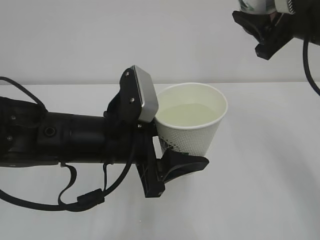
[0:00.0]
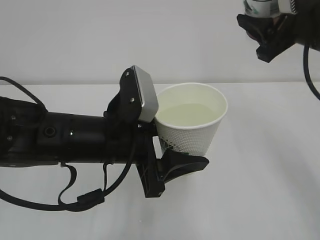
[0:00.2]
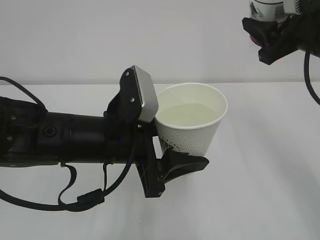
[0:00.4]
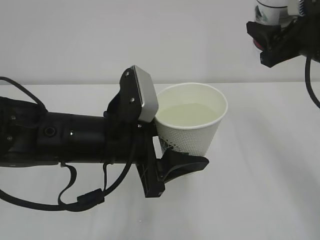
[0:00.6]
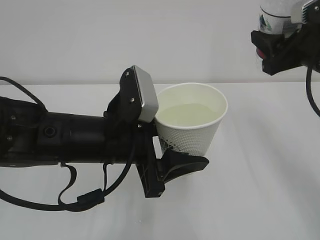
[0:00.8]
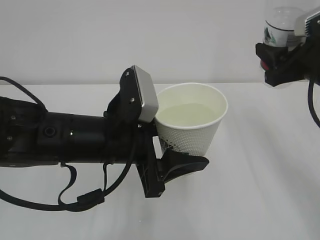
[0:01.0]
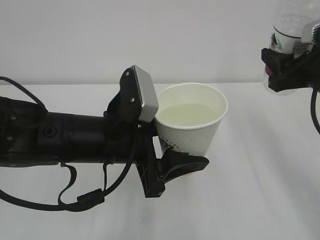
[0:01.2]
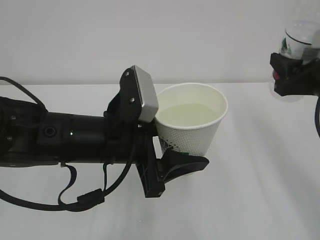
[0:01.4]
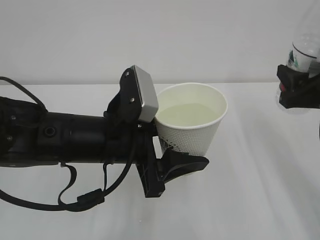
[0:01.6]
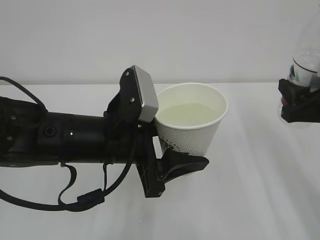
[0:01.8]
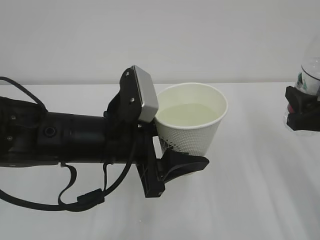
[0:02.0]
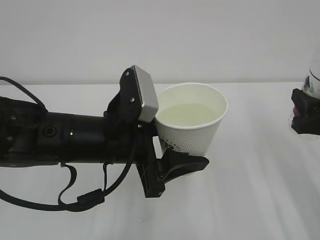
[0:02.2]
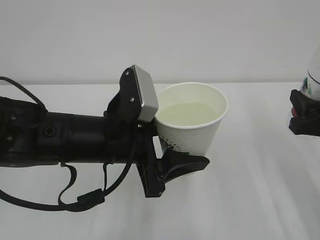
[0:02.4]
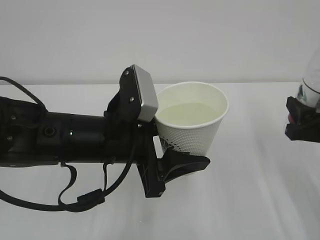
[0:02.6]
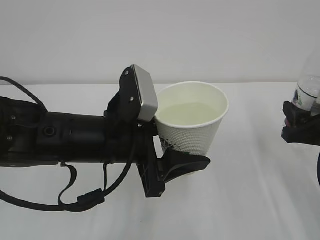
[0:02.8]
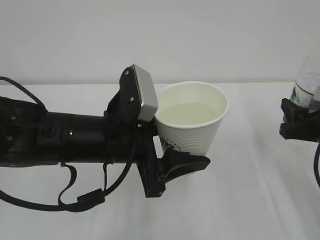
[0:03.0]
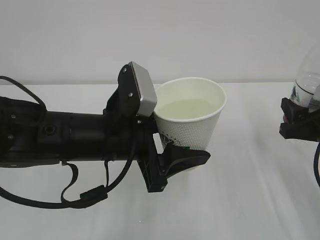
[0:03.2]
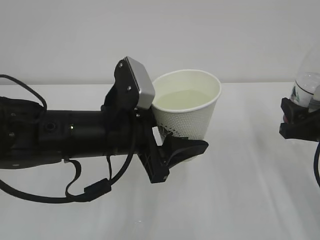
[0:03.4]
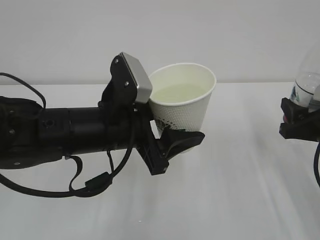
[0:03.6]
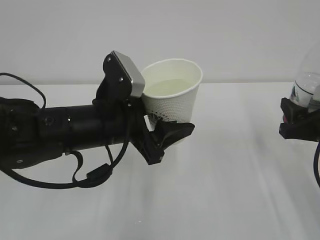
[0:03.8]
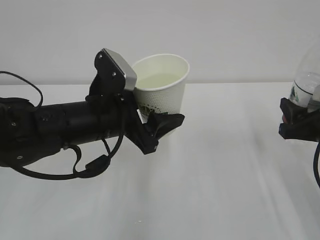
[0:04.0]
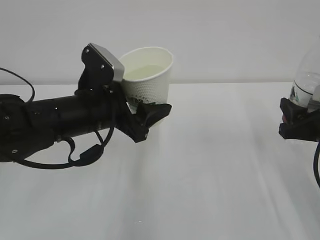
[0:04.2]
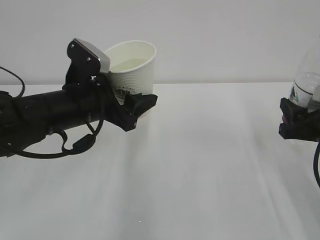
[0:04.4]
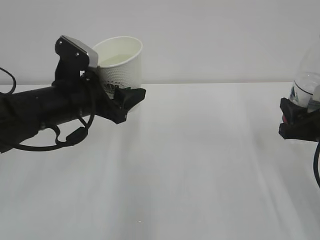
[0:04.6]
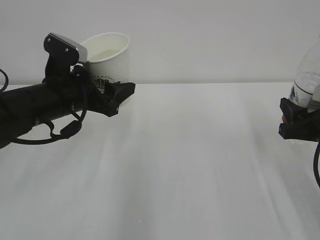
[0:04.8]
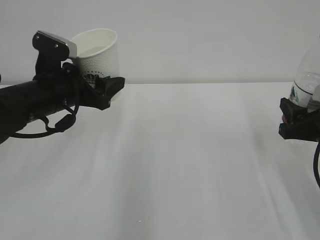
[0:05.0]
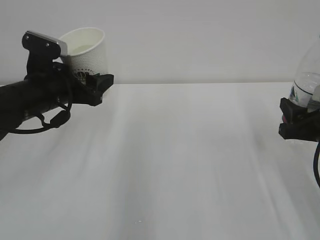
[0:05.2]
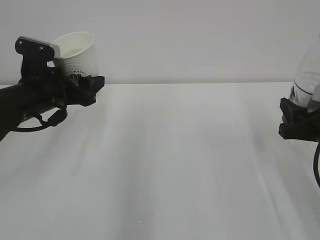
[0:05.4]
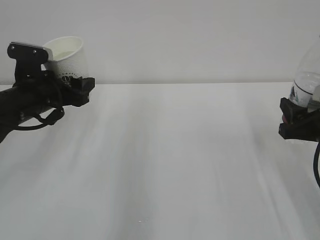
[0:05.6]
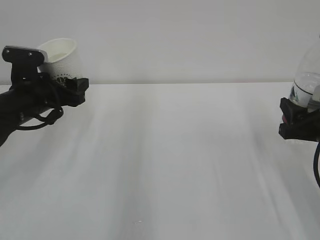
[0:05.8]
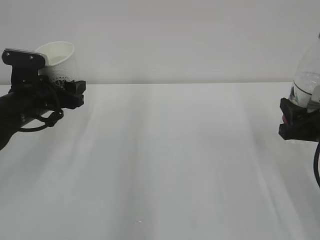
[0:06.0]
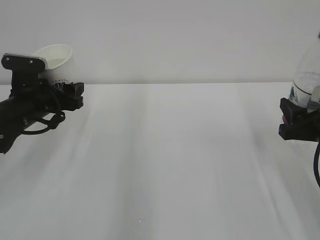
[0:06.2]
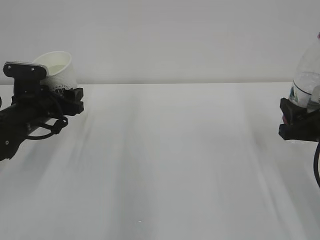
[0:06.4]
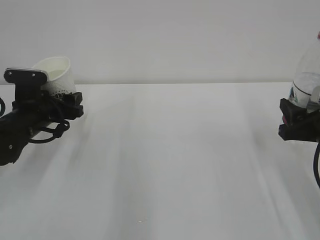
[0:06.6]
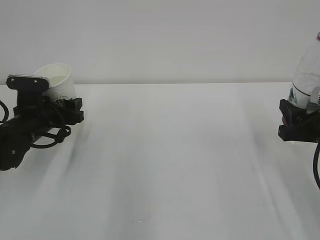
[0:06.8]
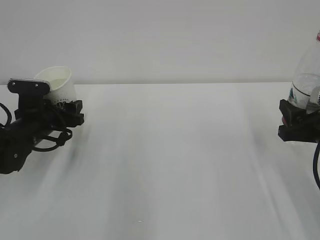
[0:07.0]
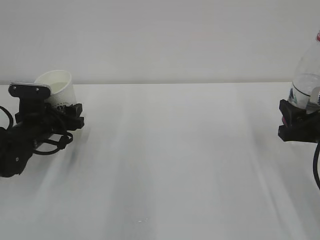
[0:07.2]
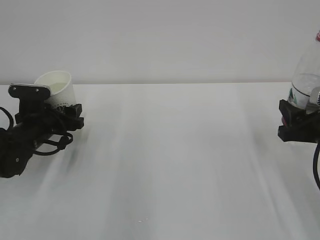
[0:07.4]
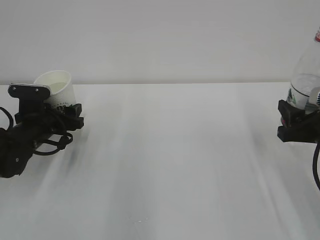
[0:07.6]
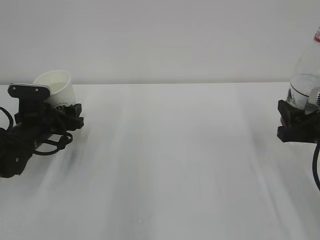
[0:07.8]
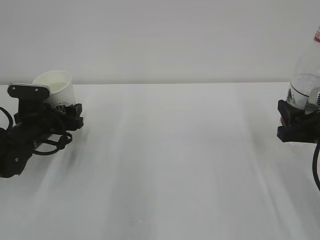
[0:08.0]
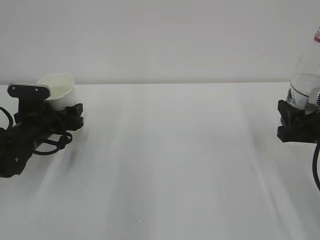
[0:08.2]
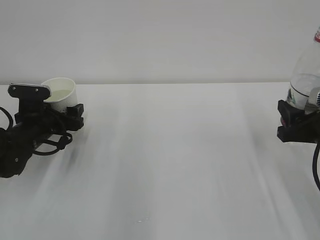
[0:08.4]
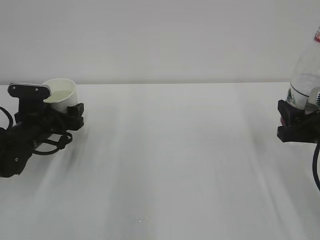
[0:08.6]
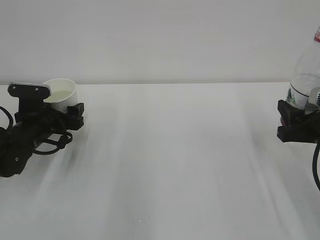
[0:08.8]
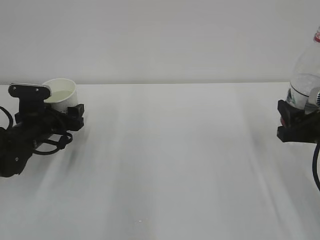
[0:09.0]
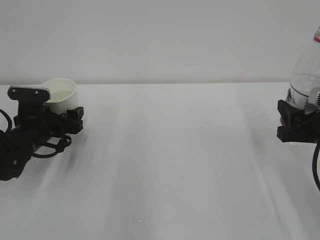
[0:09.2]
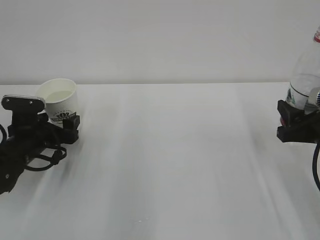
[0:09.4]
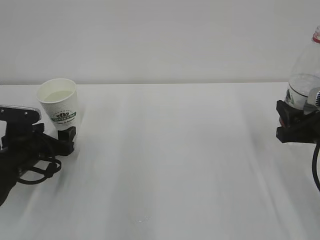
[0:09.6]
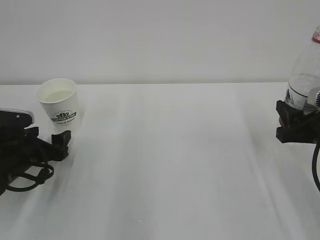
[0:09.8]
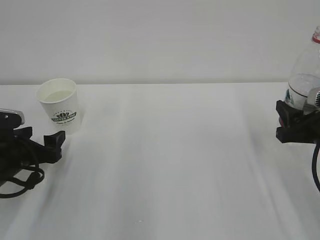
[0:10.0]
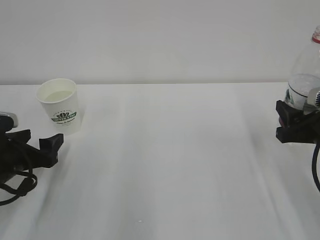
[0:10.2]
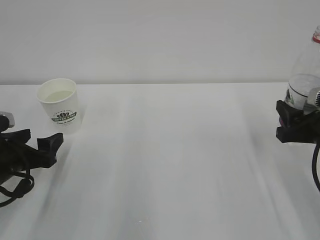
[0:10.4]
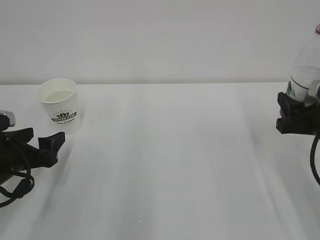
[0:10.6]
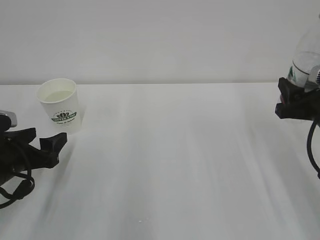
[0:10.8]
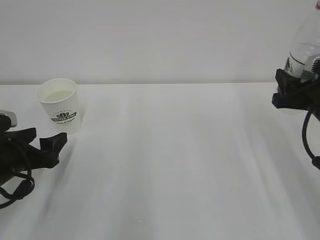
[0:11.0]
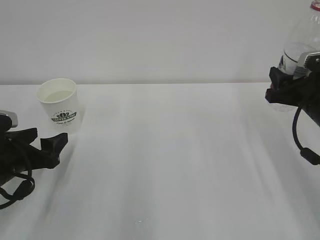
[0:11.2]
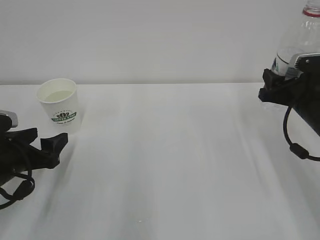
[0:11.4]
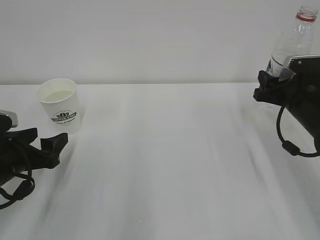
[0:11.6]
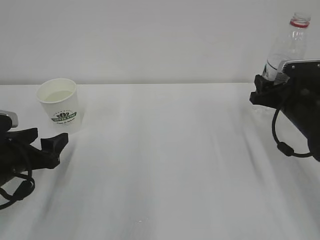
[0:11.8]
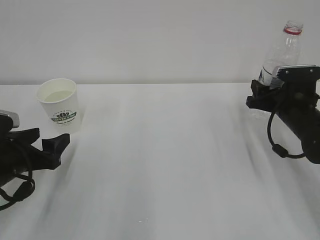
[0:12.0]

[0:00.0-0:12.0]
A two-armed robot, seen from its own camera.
0:00.0 to 0:01.6: The right gripper travels downward and backward by some 10 cm.
0:01.6 to 0:03.0: The right gripper moves downward, some 5 cm.
0:03.0 to 0:04.4: The left gripper moves forward and to the left, roughly 10 cm.
0:04.4 to 0:06.0: The left gripper is displaced to the left and forward by about 10 cm.
0:06.0 to 0:07.6: The left gripper moves downward, about 5 cm.
0:09.0 to 0:10.4: The left gripper shifts about 10 cm backward.
0:10.4 to 0:12.0: The right gripper shifts some 10 cm forward.

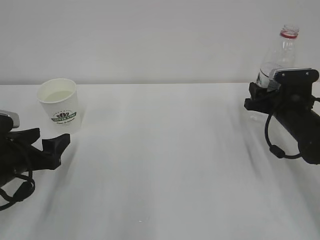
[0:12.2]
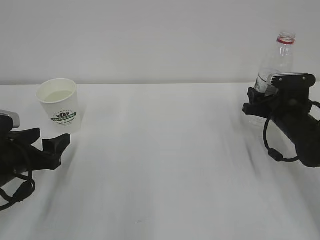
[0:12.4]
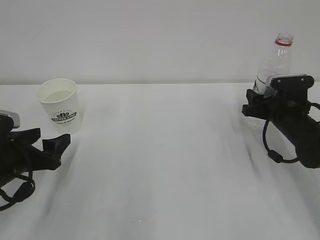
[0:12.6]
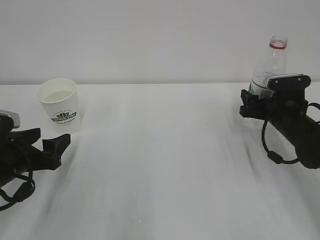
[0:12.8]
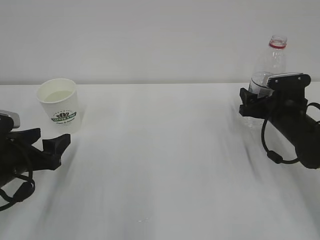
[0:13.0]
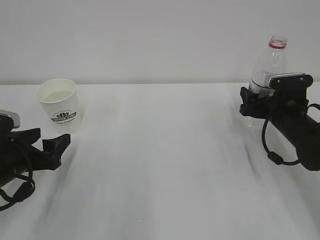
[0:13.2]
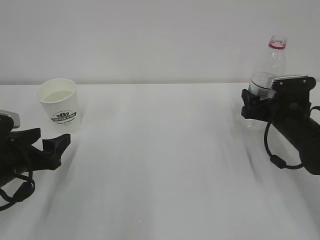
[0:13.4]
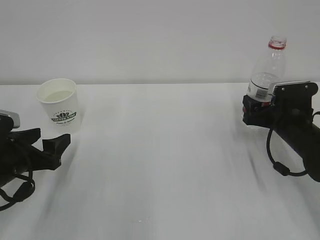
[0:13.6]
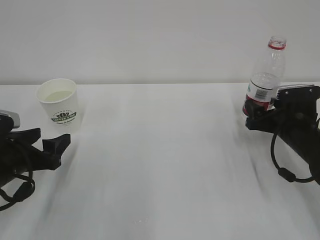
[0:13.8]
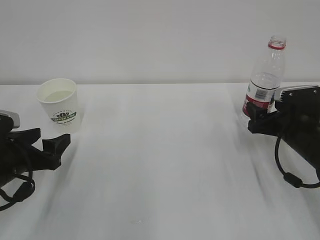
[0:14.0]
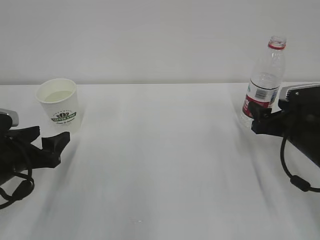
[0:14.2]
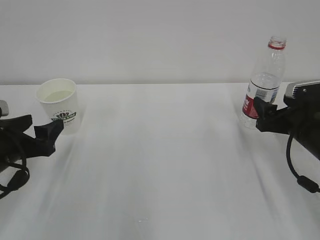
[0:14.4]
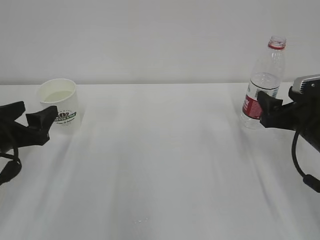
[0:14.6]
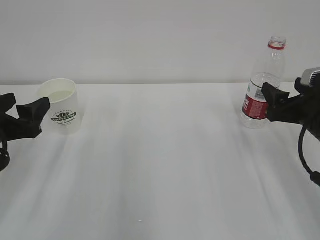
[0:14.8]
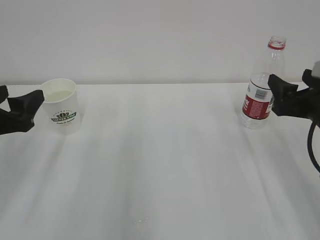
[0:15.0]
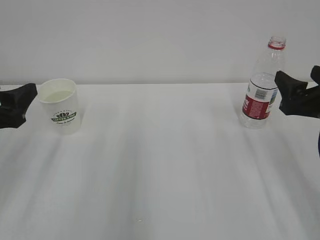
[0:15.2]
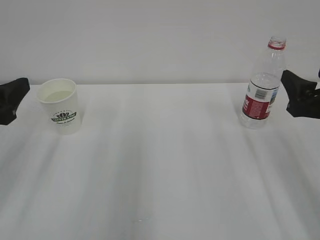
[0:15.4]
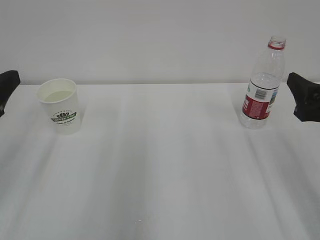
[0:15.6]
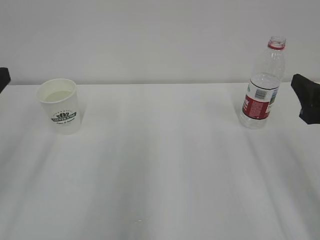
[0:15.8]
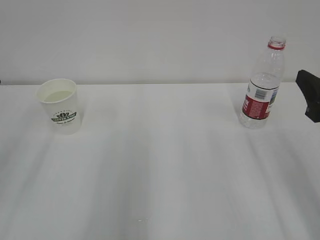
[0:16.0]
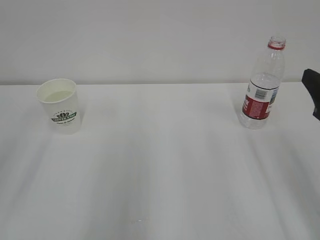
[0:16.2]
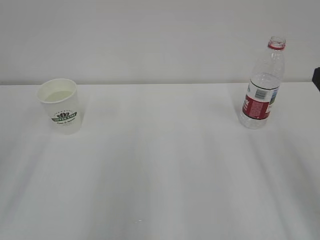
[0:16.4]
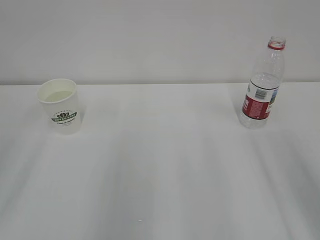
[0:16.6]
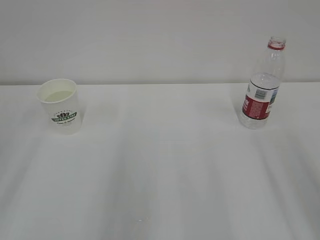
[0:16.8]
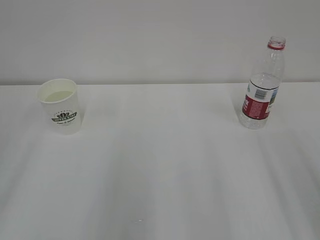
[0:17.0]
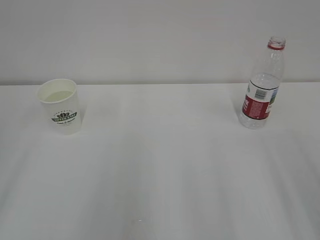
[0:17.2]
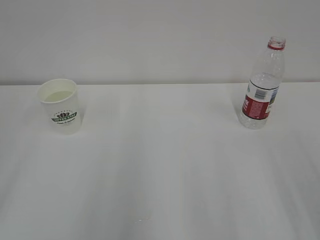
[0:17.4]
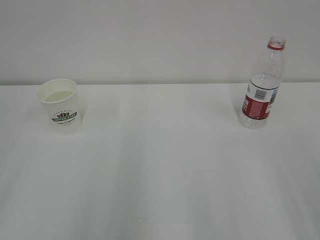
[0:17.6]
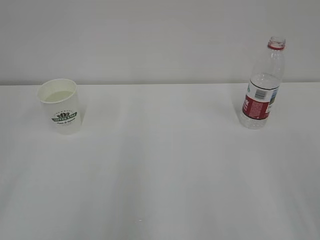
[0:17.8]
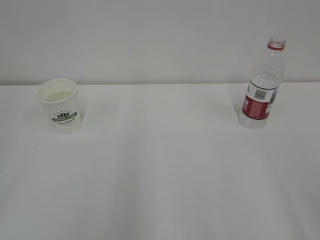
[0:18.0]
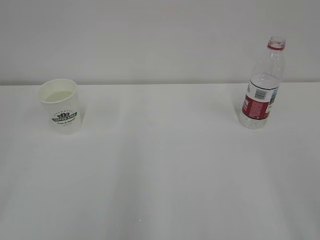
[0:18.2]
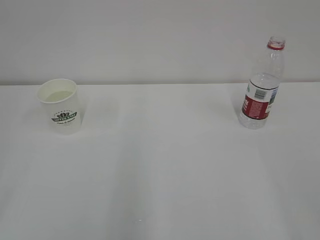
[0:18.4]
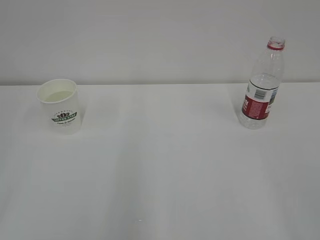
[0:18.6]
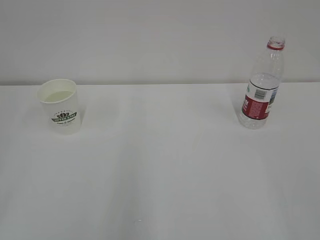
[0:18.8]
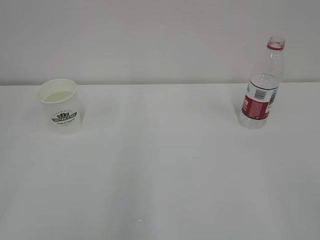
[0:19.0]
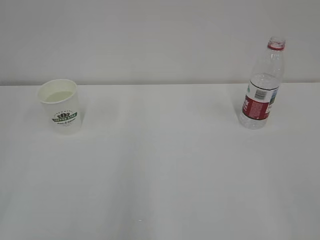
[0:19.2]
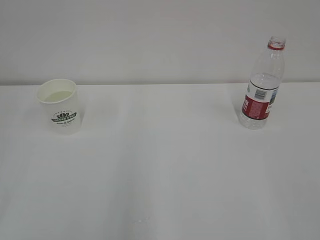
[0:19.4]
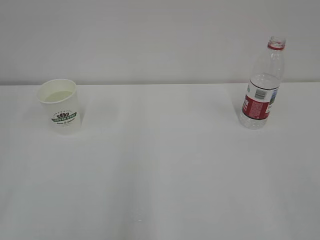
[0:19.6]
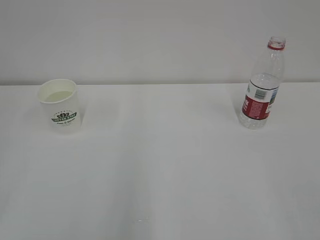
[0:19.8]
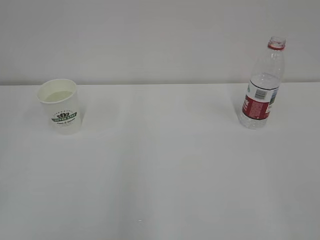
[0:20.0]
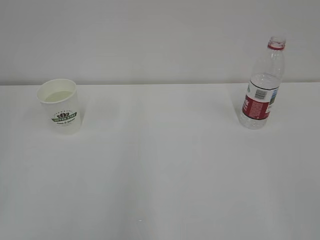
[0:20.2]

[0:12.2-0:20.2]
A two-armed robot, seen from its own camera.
0:12.2 to 0:13.8: The right gripper opens its fingers.
0:13.8 to 0:15.4: The right gripper travels upward and backward by approximately 15 cm; the left gripper heads upward, covering about 10 cm.
0:15.4 to 0:17.0: Both grippers travel together backward and upward, about 15 cm.

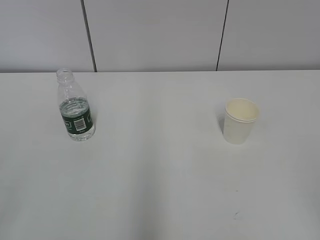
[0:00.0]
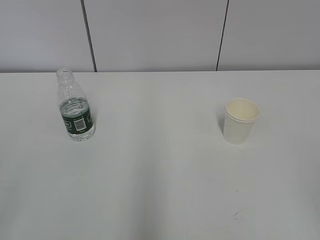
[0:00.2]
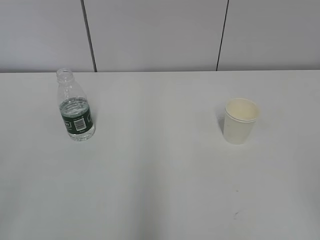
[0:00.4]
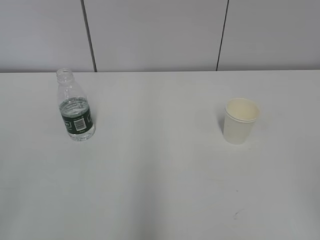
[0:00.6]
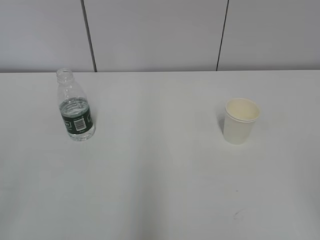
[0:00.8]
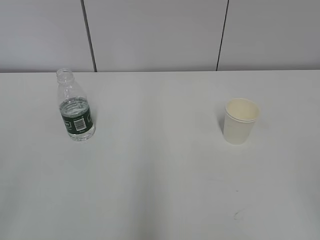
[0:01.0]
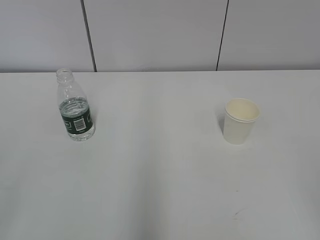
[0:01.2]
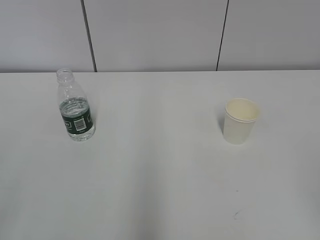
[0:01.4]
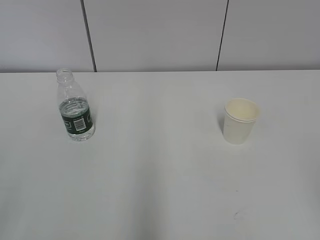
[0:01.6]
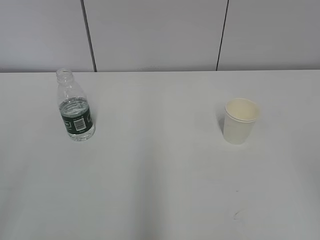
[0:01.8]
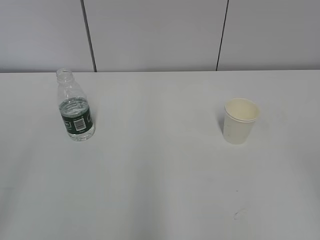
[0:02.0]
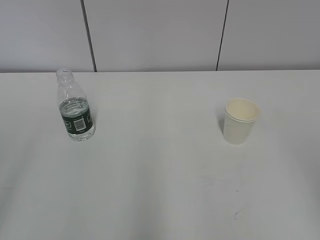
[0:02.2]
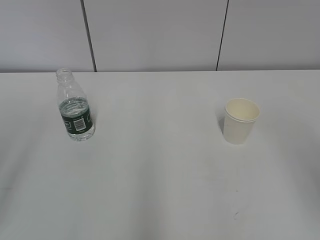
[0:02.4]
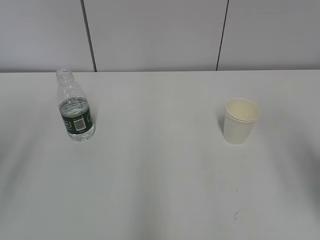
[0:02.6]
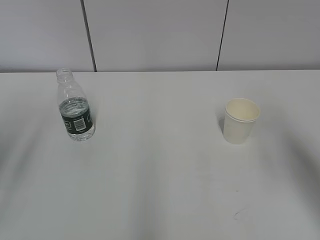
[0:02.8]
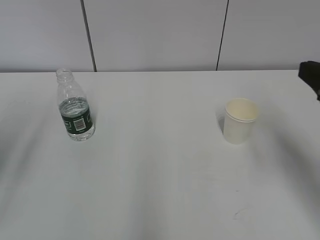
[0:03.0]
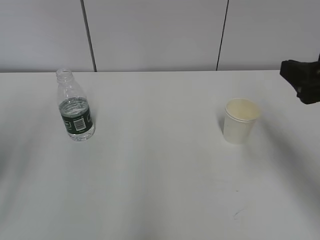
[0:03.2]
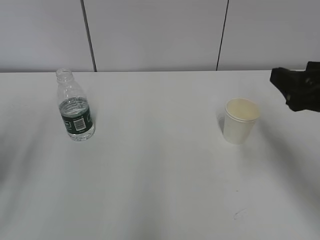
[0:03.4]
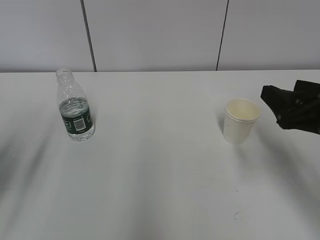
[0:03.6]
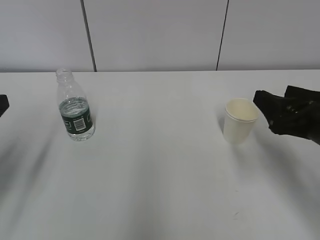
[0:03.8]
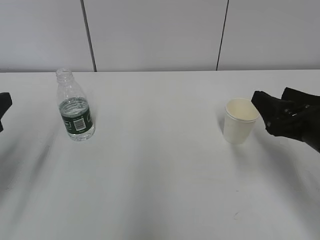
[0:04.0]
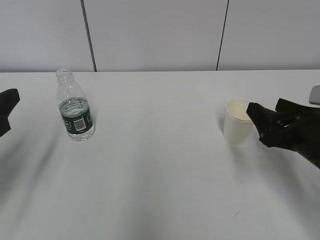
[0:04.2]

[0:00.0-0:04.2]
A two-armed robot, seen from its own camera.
0:01.4 to 0:02.8: Both grippers move forward, some 15 cm.
0:02.8 to 0:04.2: The left gripper heads downward, covering some 10 cm; the right gripper is displaced downward and forward by some 15 cm.
